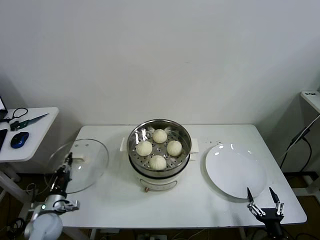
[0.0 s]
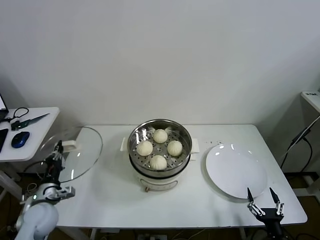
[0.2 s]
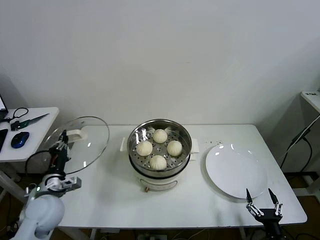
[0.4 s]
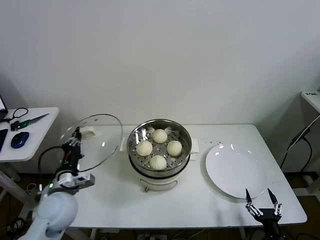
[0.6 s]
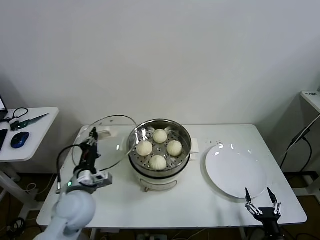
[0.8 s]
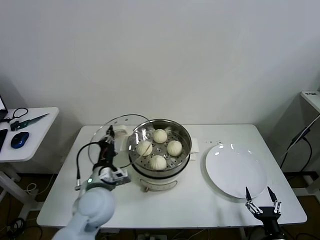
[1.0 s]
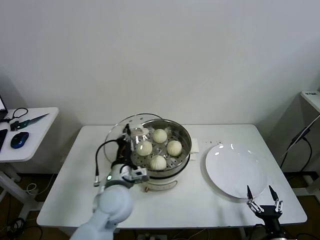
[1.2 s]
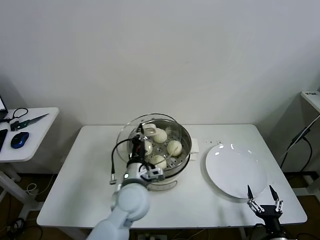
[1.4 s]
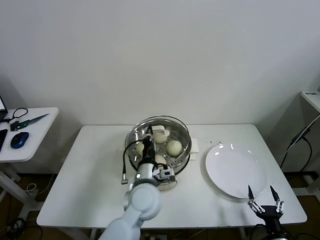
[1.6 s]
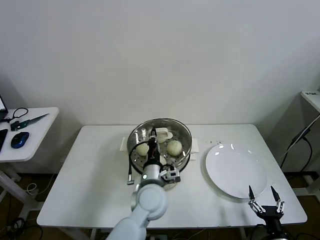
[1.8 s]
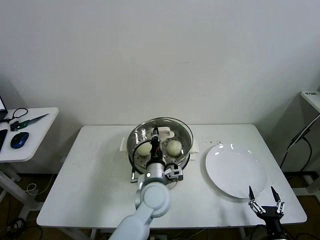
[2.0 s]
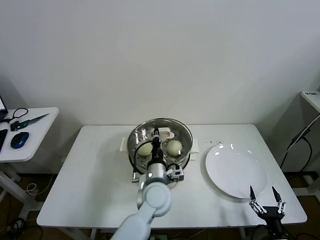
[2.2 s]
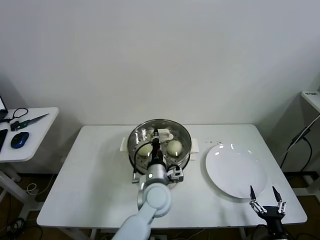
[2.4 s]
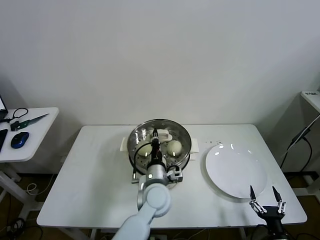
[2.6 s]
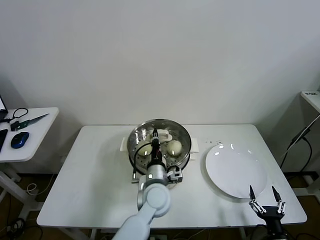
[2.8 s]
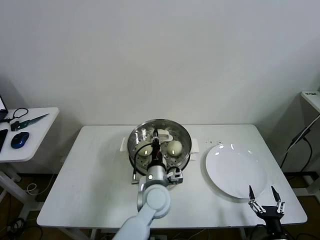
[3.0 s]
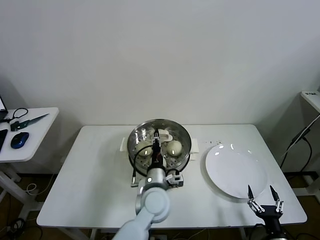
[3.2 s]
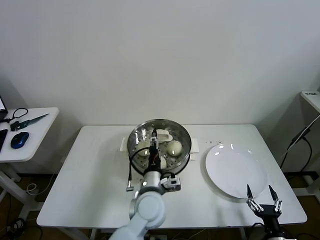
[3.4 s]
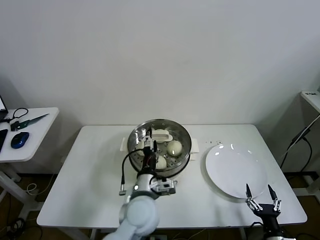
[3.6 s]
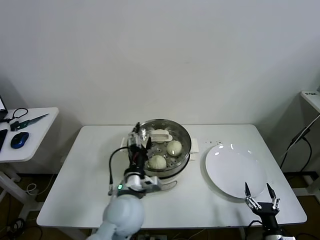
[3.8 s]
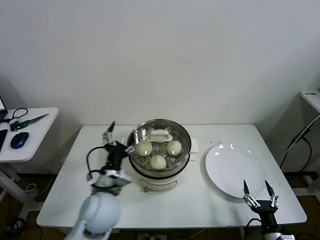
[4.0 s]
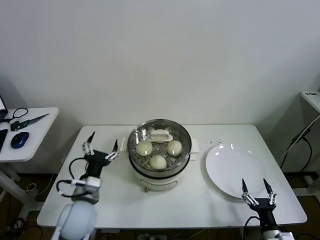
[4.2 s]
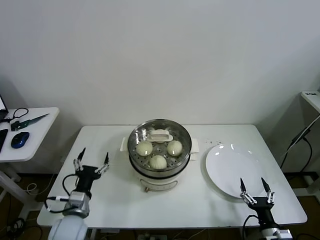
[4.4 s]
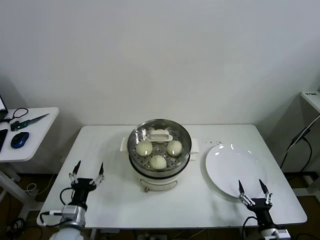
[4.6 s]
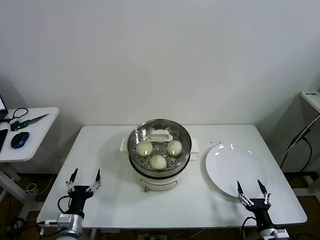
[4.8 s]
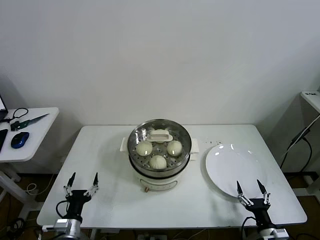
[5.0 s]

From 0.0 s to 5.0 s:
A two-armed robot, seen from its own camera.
Task of the whole recording: take steamed baozi put them in steamer then cover it.
Step, from 0.0 s to 3.4 s: Place the pot lid on the steamer with left gripper.
From 0.0 s to 1.6 s: The left gripper heads to the right and upward, covering about 40 cm.
From 1.6 s to 3.4 s: The left gripper opens its fingers.
From 3.4 s to 5.0 s: The left gripper travels to the left and downward by about 30 cm, and opens.
